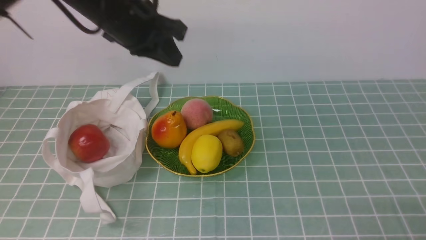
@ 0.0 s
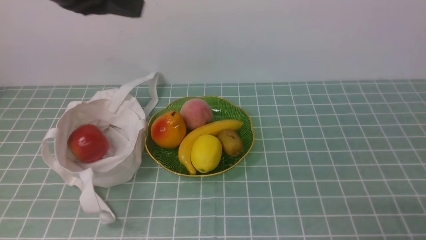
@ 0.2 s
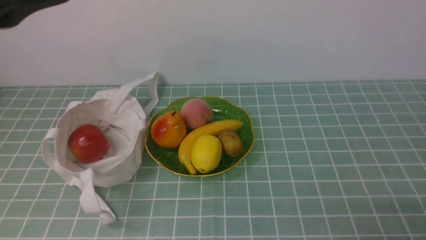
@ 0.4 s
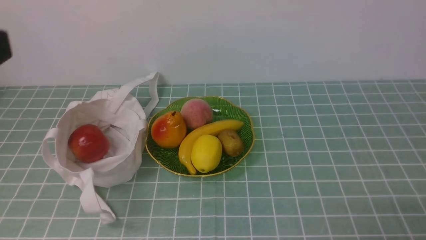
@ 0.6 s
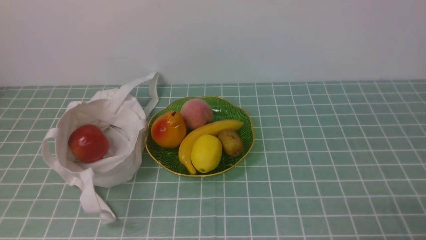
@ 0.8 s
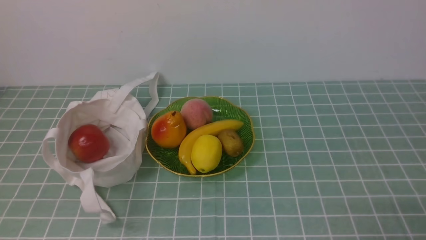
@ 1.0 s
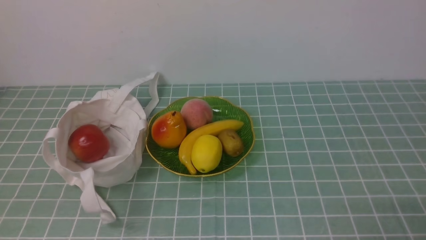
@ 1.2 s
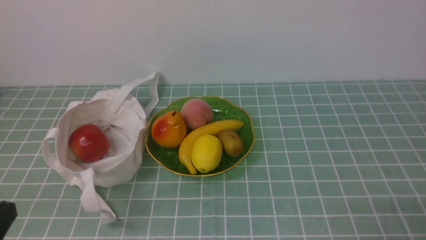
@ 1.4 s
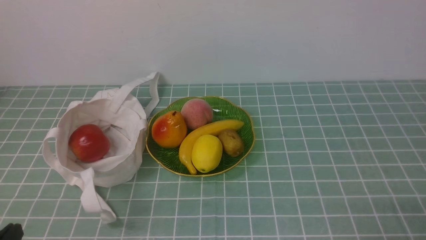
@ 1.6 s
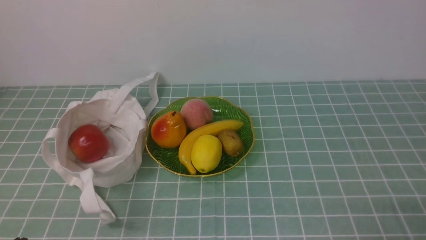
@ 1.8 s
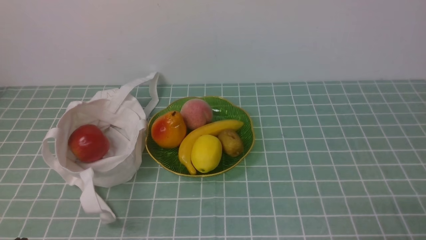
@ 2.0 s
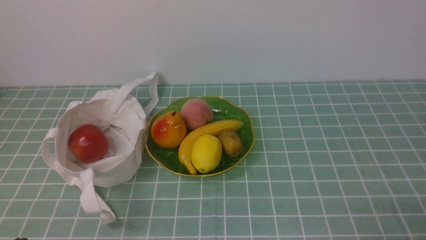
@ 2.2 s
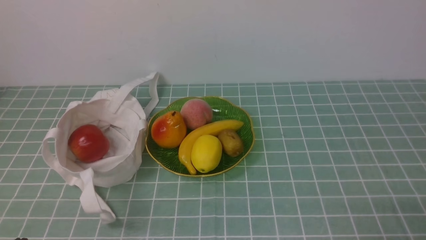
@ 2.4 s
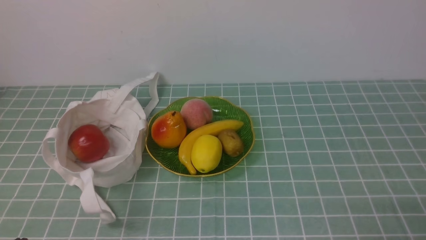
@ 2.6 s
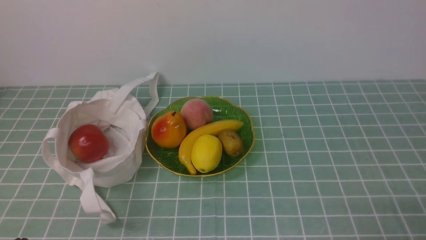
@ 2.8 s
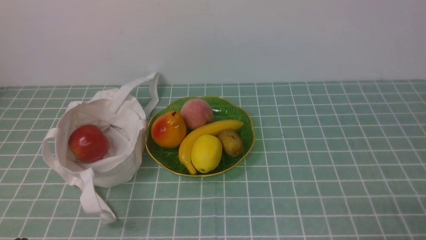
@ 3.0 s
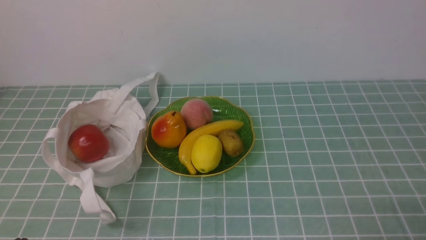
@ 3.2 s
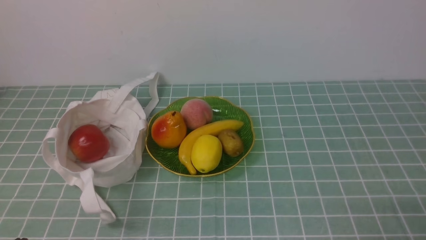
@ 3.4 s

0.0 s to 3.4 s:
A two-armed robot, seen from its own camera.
0.0 to 1.6 s: The left gripper travels backward, downward and to the left by approximately 35 cm.
